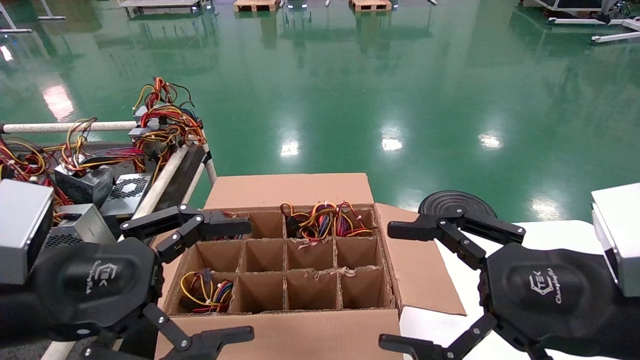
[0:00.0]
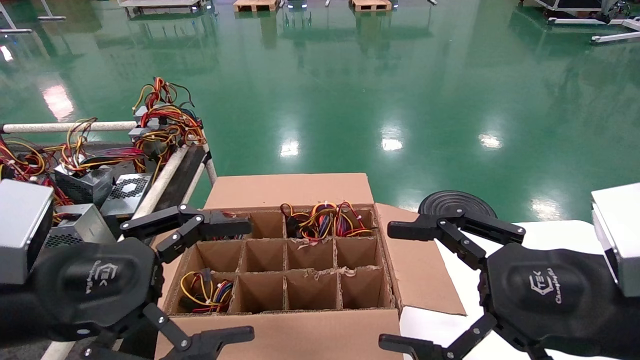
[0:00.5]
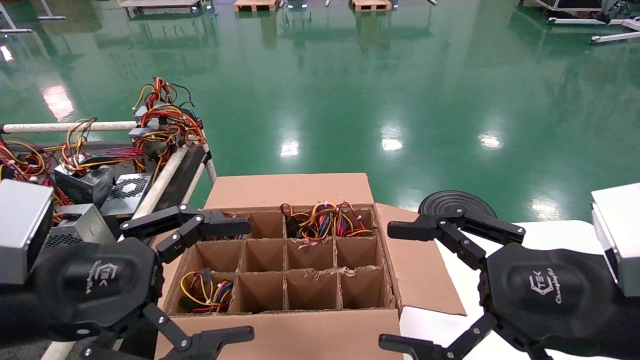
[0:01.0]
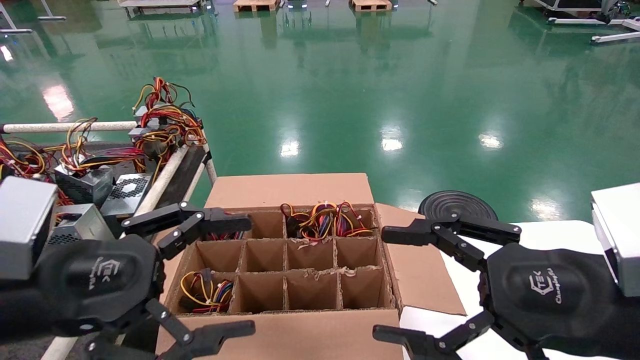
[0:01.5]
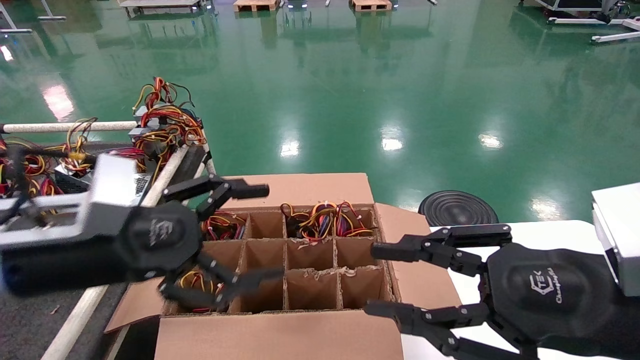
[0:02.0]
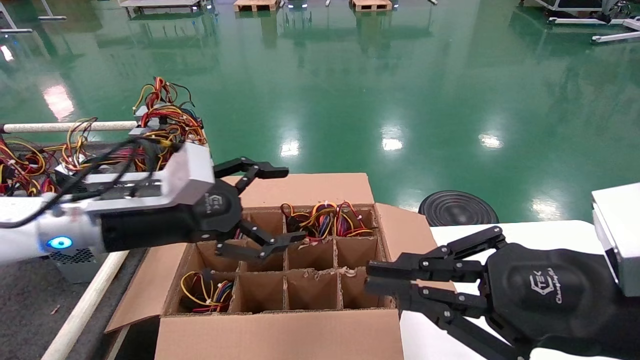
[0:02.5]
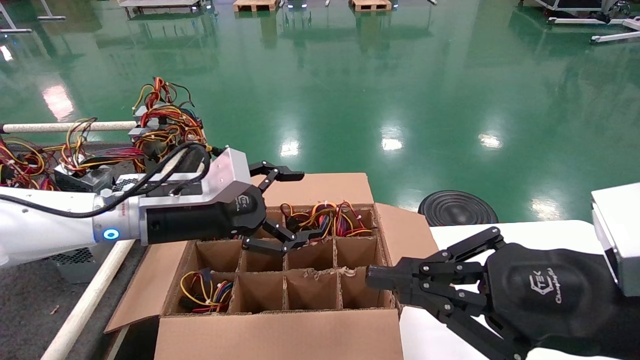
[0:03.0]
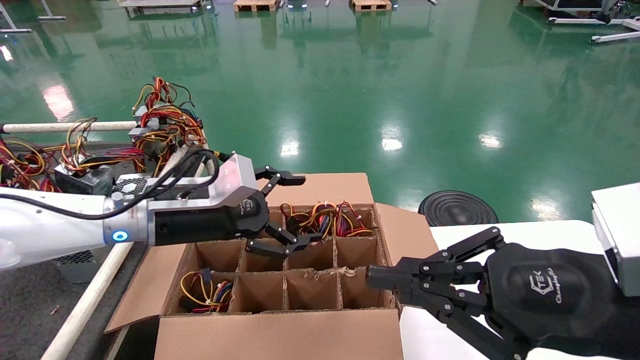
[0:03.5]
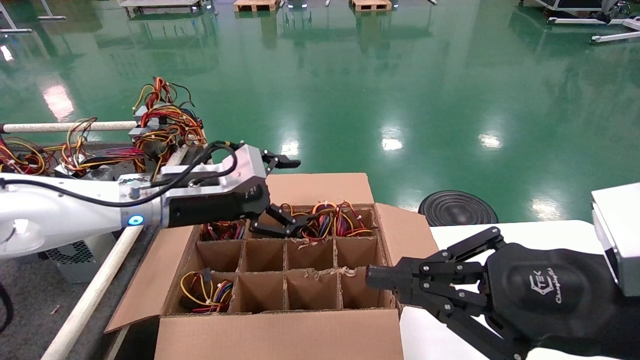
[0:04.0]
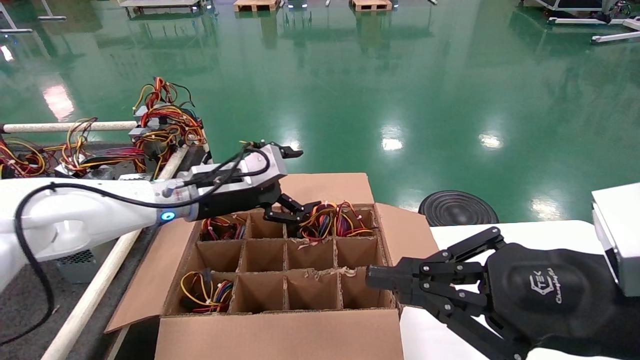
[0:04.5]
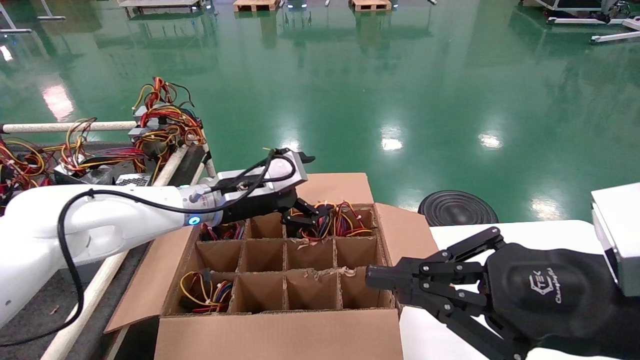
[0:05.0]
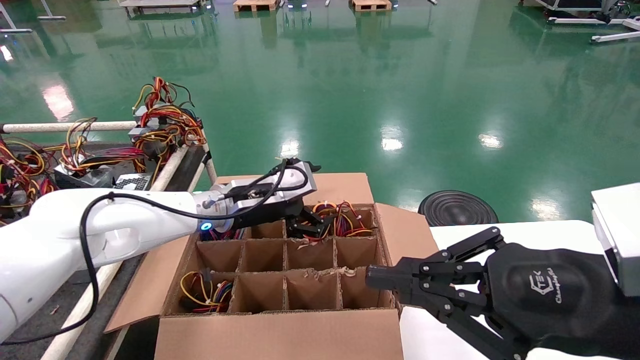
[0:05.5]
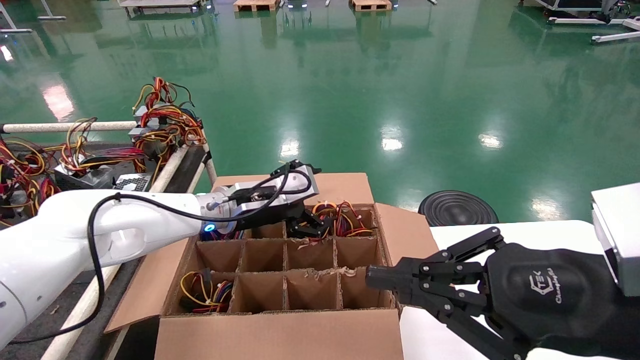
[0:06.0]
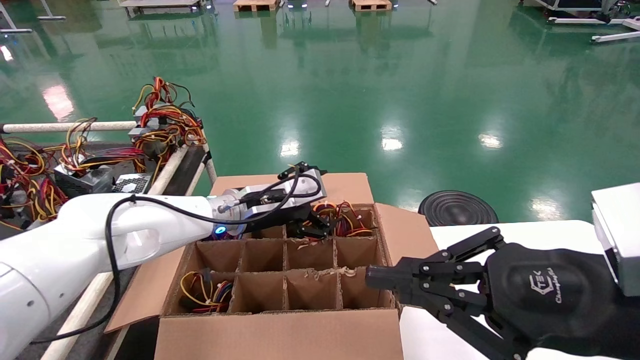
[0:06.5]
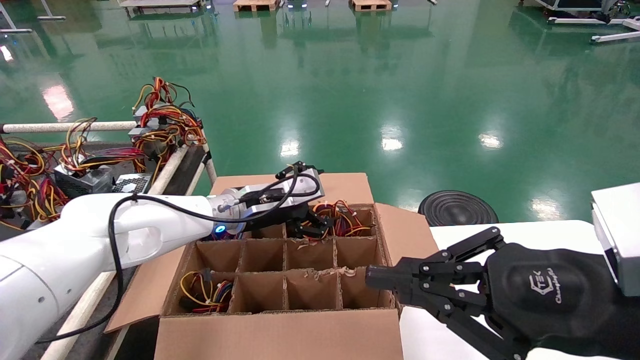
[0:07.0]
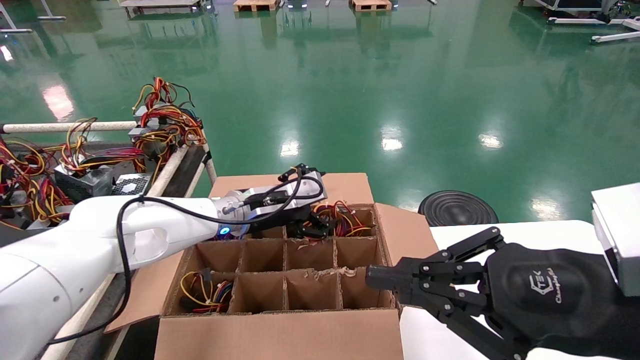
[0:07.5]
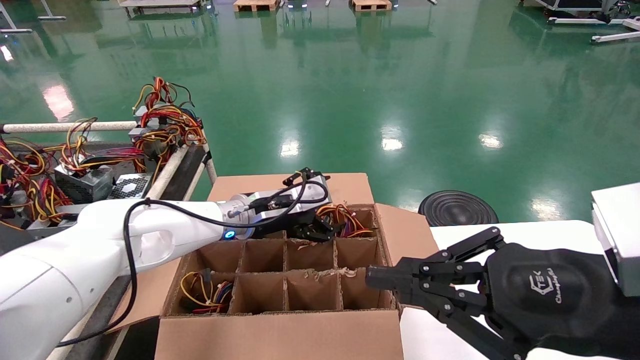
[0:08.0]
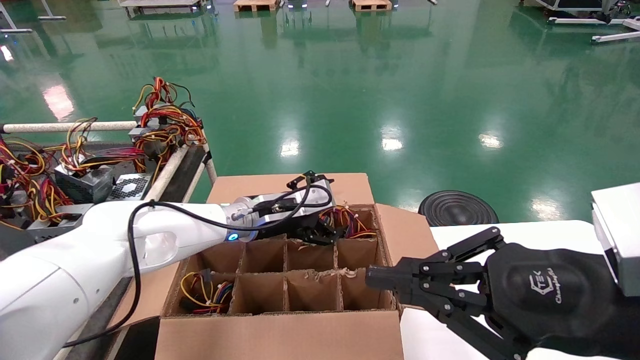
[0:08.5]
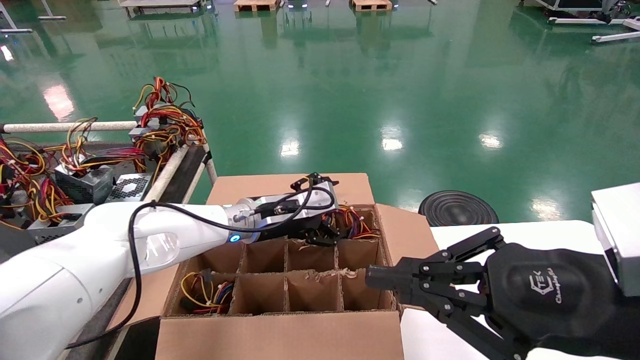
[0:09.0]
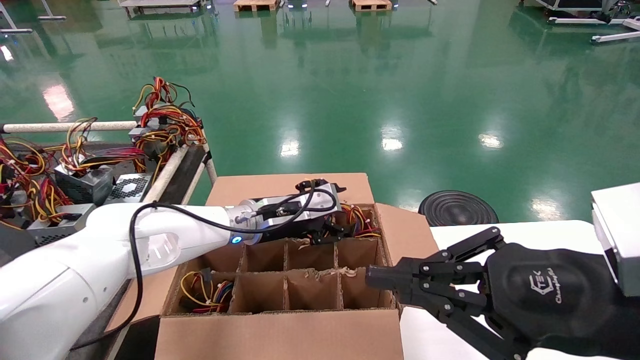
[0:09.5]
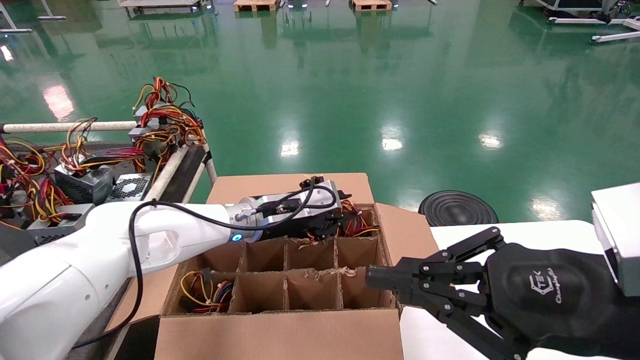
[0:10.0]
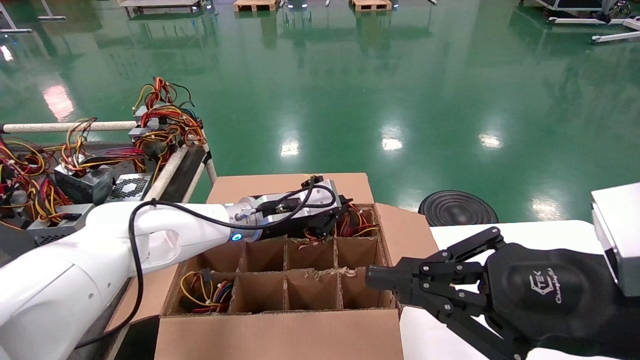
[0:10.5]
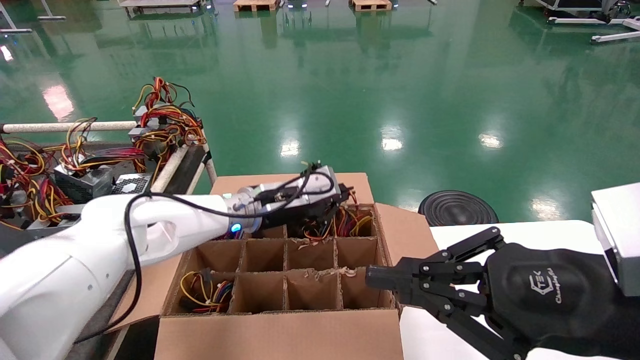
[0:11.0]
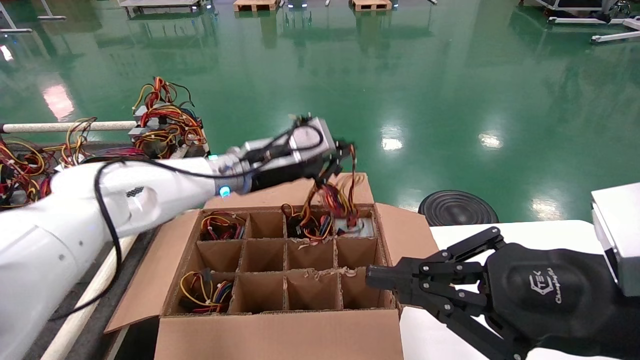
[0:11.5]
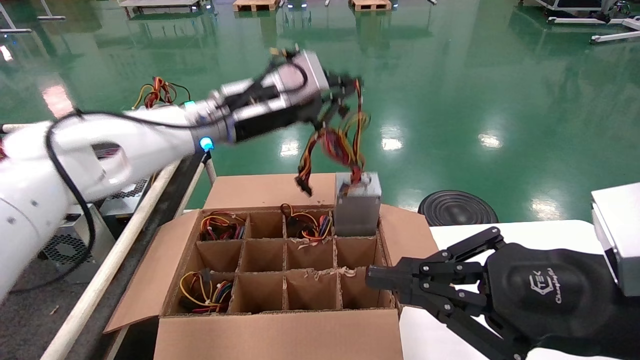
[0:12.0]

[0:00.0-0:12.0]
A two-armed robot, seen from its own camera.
Step, 0:02.0 to 0:10.0: Grab and lift the power supply from the large box.
0:00.0 to 0:02.0: The right gripper closes its fingers. Meanwhile the left gripper heads forward, covering some 5 cm.
0:02.0 to 0:04.0: The left gripper moves forward, approximately 15 cm; the right gripper closes its fingers.
0:04.0 to 0:06.0: The left gripper travels to the right and forward by roughly 10 cm.
0:06.0 to 0:08.0: The grippers move only a little.
0:08.0 to 0:10.0: The left gripper closes up.
0:10.0 to 0:12.0: The left gripper is displaced upward by about 20 cm, and closes its fingers.

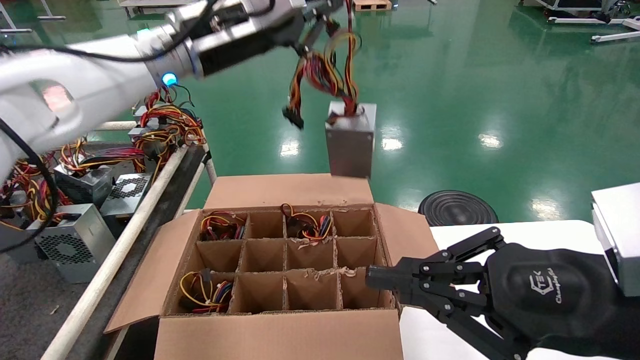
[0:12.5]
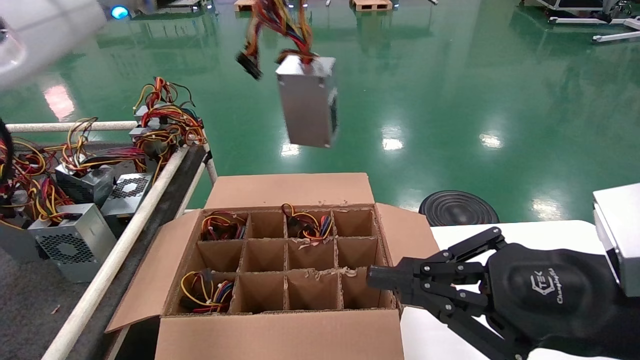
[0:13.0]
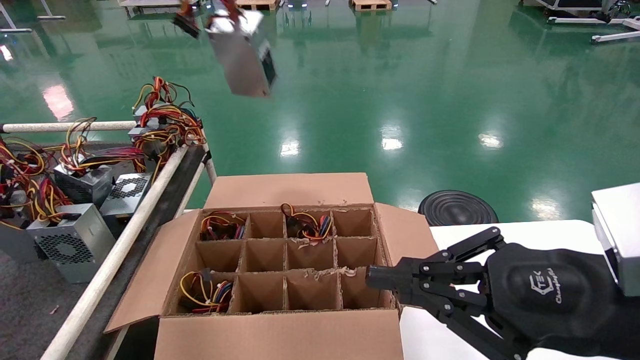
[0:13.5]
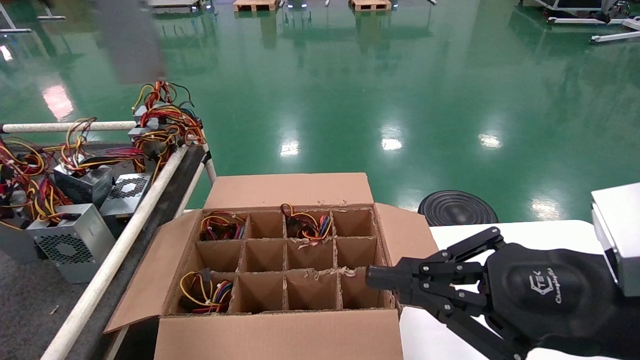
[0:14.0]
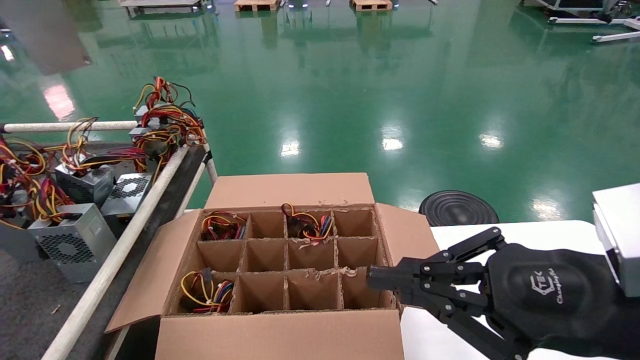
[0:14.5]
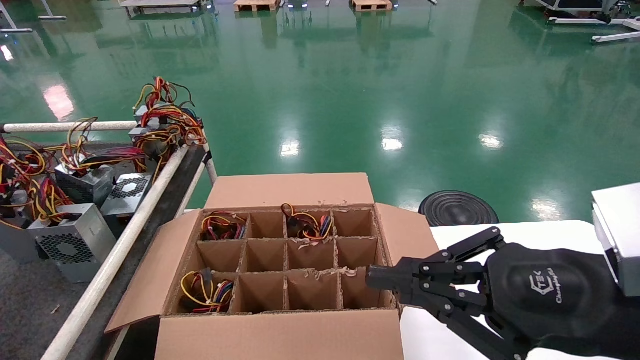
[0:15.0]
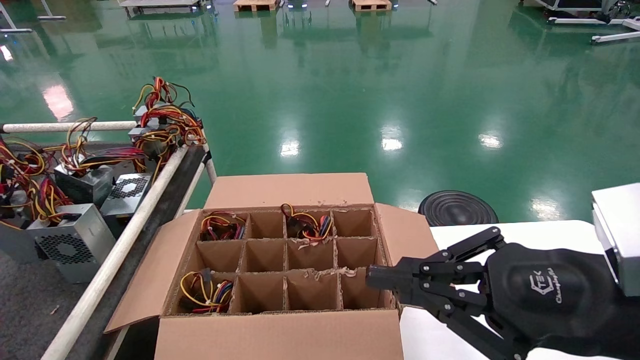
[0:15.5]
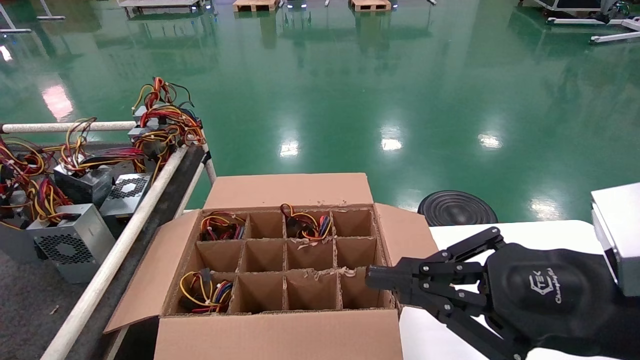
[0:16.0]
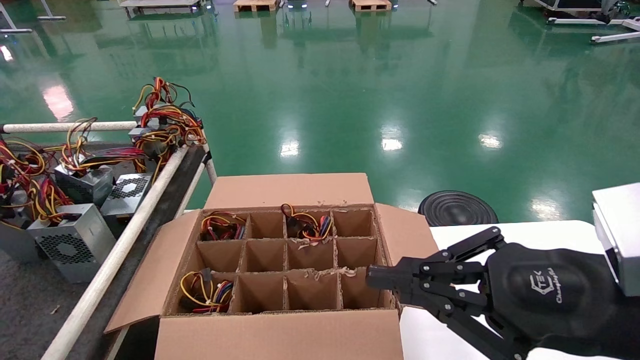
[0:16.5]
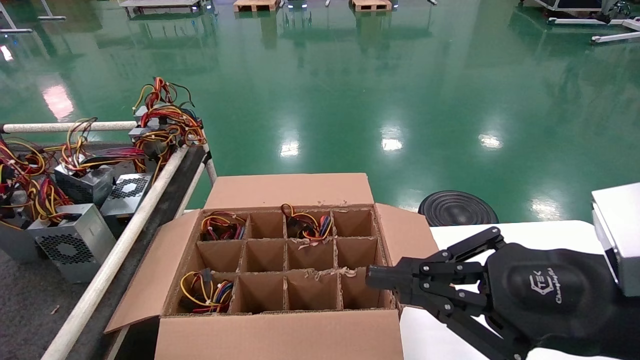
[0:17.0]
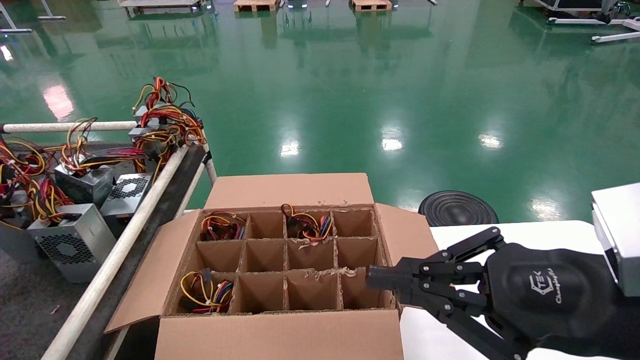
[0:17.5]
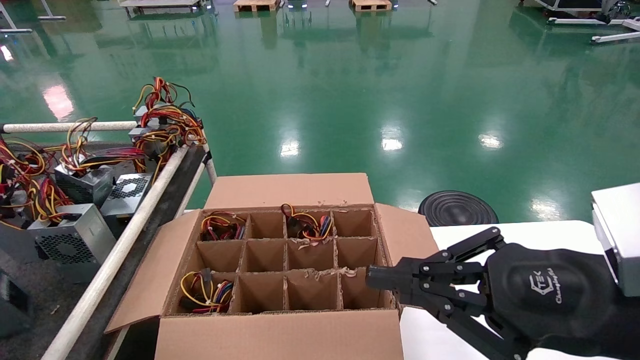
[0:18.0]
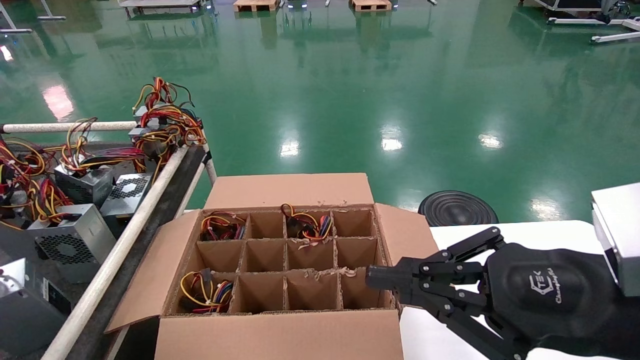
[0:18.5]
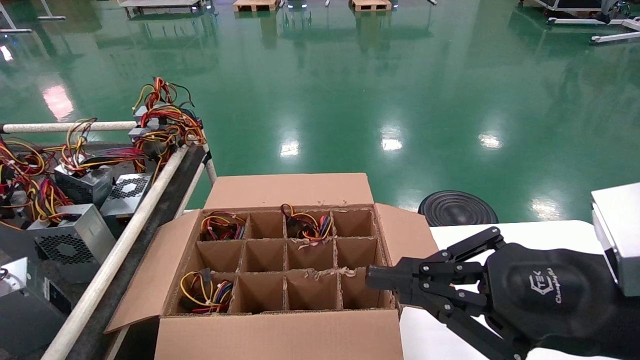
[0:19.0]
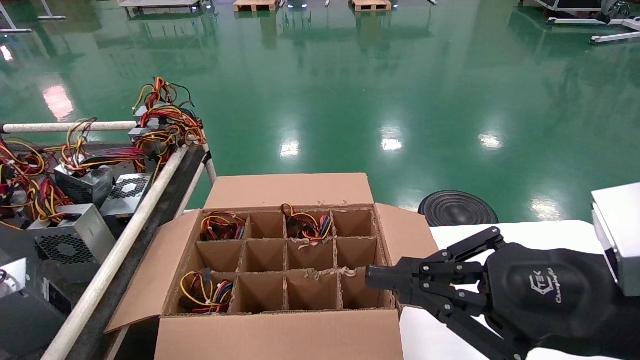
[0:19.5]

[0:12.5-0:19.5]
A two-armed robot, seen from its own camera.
Step, 0:12.5 to 0:19.5: Place the power supply on the operating table.
0:12.5 to 0:14.5: The left gripper moves to the left and upward, some 35 cm.
0:14.5 to 0:16.0: The left gripper goes some 25 cm backward and to the left.
0:17.5 to 0:19.5: The left gripper goes about 10 cm downward and forward.
